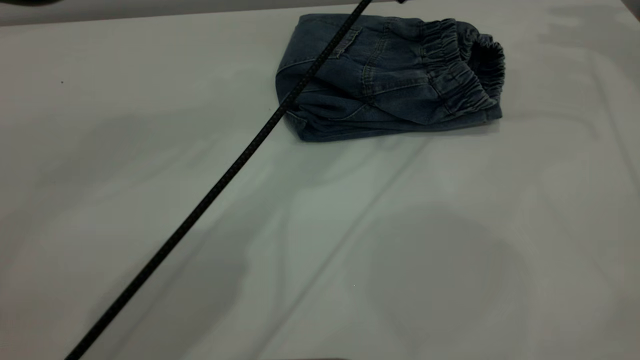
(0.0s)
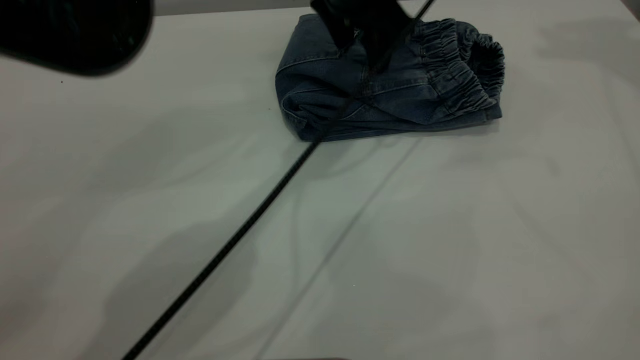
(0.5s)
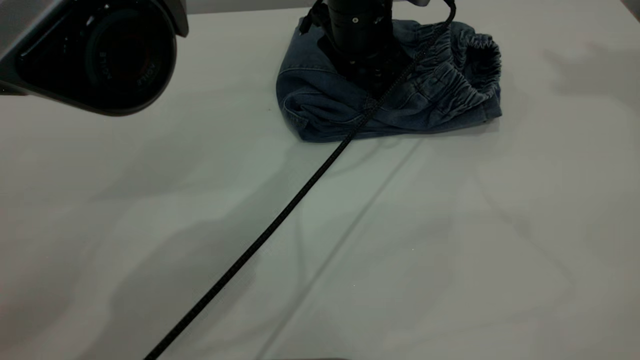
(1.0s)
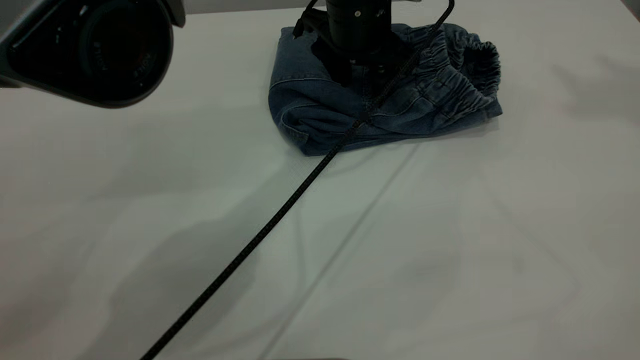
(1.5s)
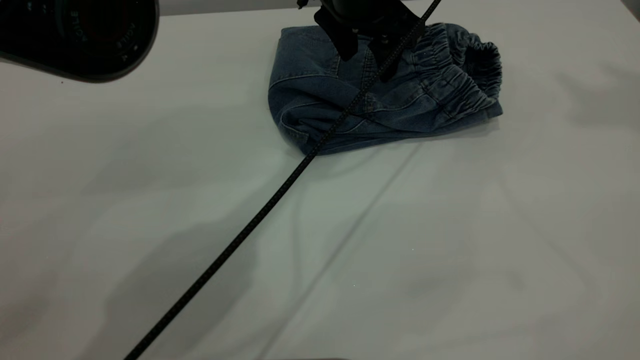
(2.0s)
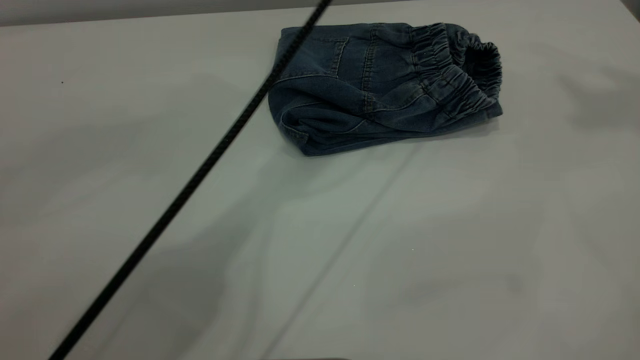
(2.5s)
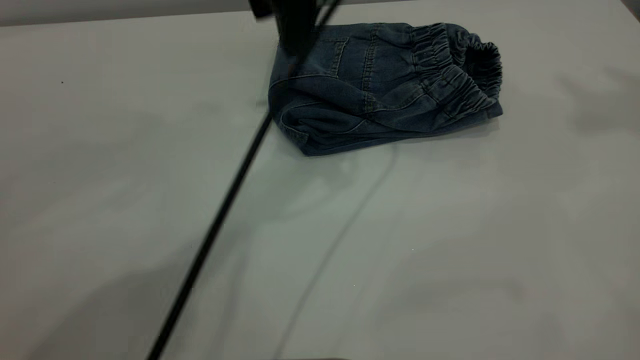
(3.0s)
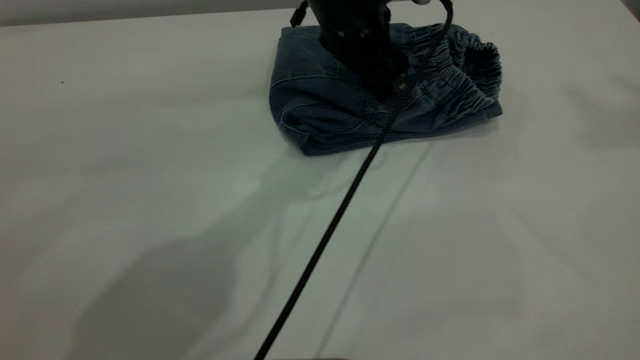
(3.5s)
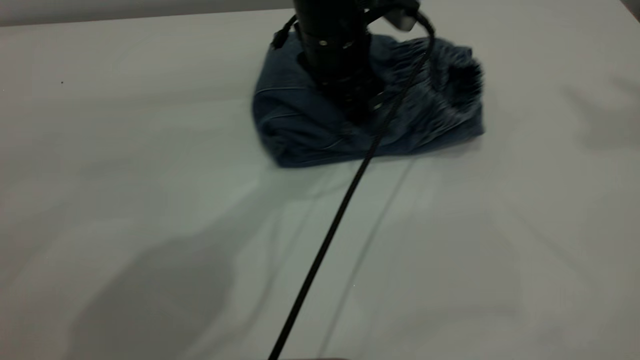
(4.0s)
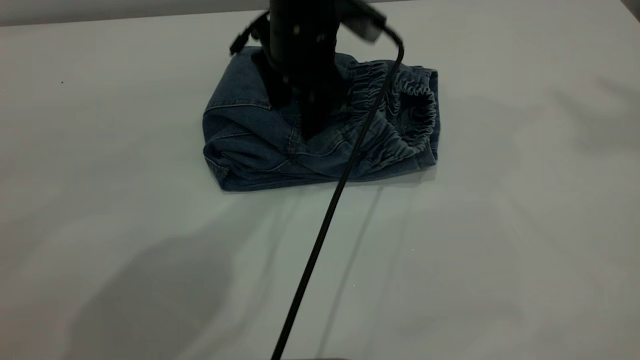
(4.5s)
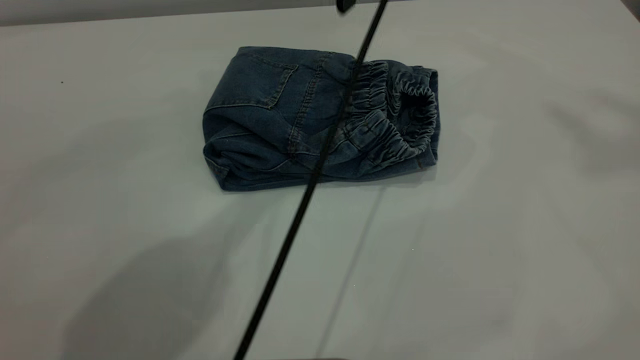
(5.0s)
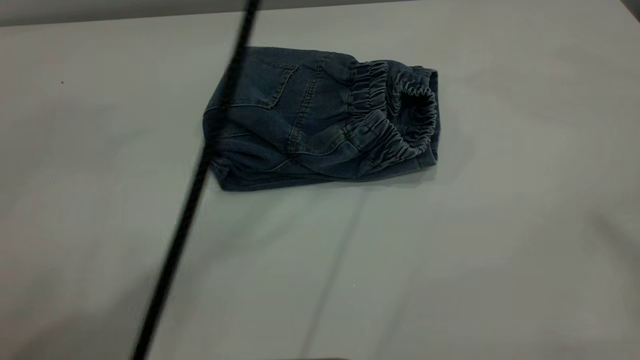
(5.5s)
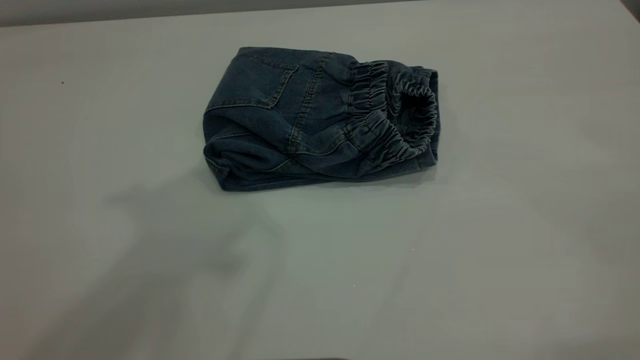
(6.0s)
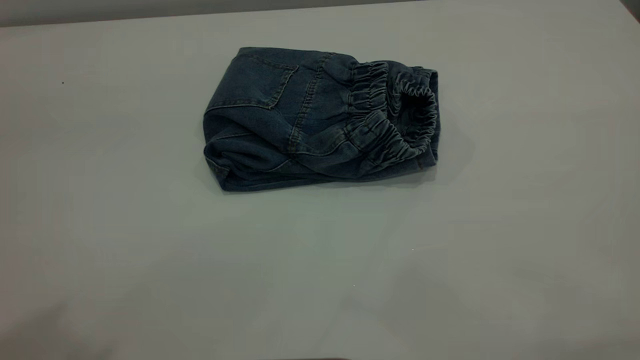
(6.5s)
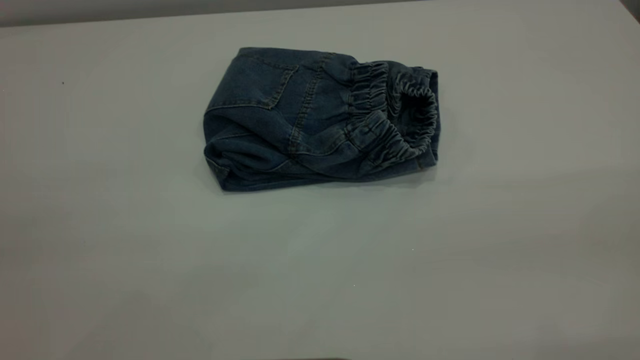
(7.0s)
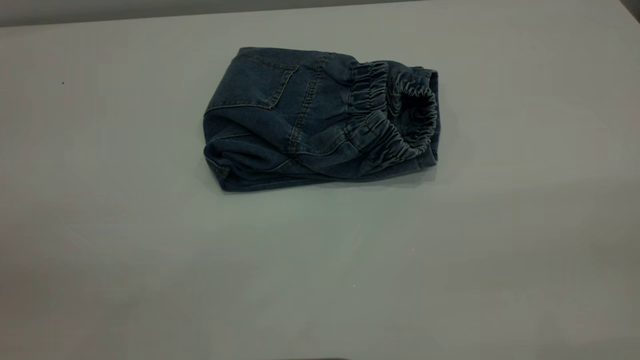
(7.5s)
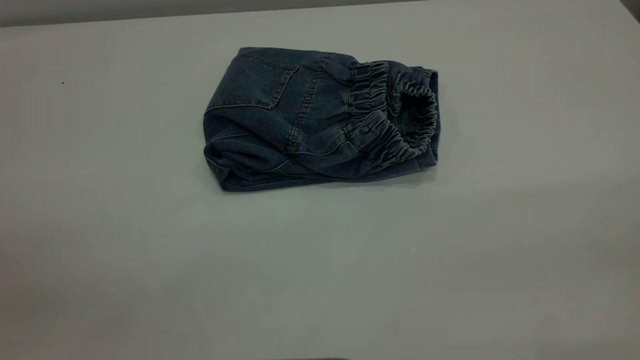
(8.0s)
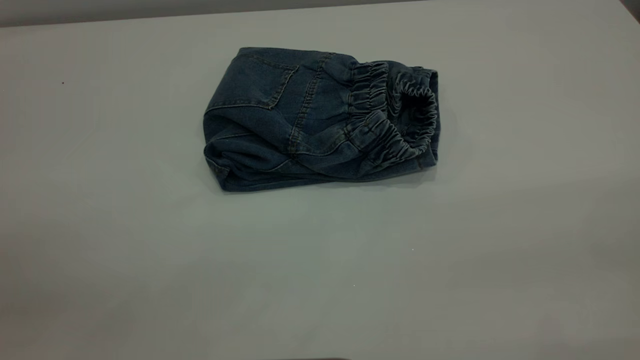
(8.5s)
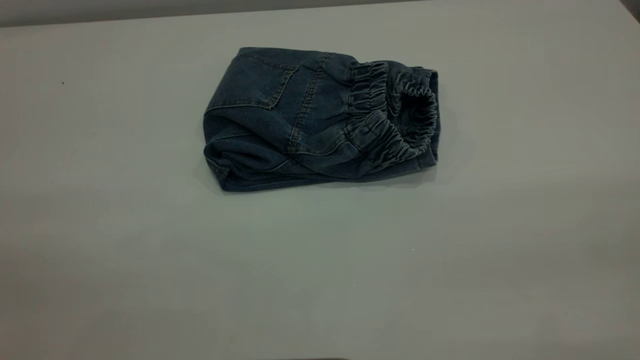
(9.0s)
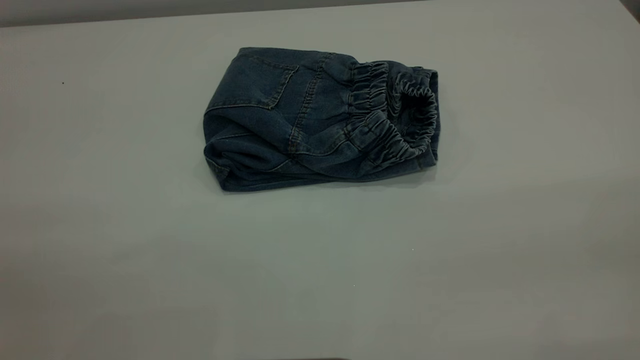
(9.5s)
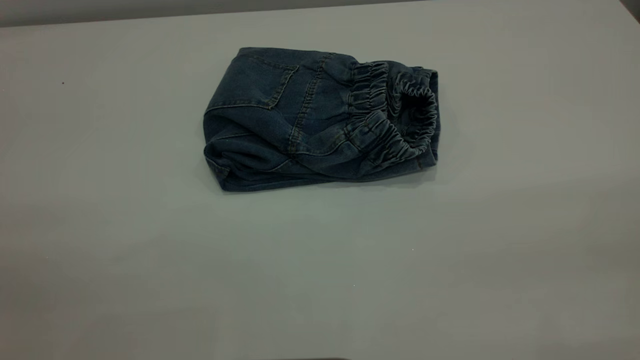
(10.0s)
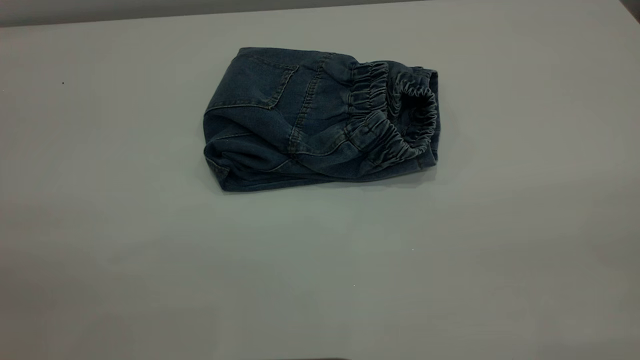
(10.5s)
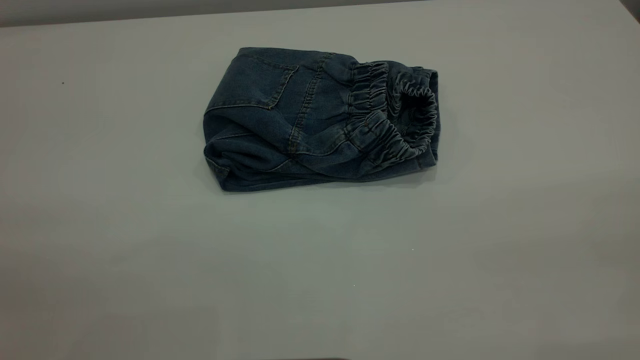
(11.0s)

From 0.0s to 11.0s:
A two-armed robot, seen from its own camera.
From 0.0s to 2.0s: The right gripper travels upward and backward by roughly 30 cm. Meanwhile the left gripper shifts some 10 cm downward.
From 2.0s to 3.5s: The left gripper reaches roughly 15 cm upward, then returns.
From 3.5s to 5.5s: The left gripper goes approximately 30 cm upward. The right gripper is displaced backward by about 15 cm.
From 5.5s to 7.5s: The left gripper goes about 40 cm backward and to the left, while the right gripper travels downward and backward by approximately 35 cm.
